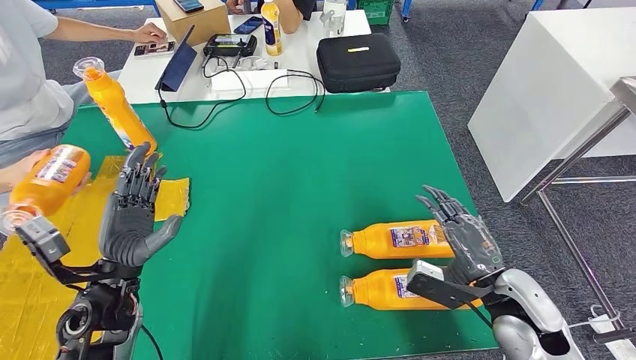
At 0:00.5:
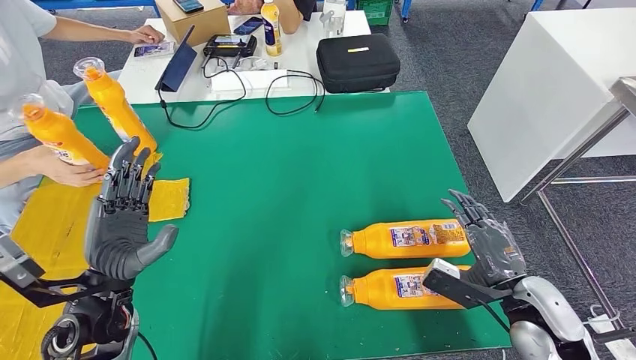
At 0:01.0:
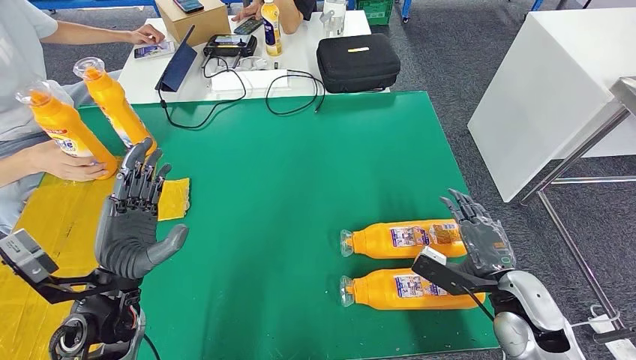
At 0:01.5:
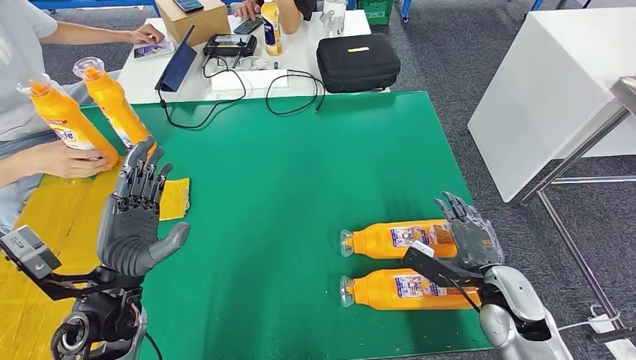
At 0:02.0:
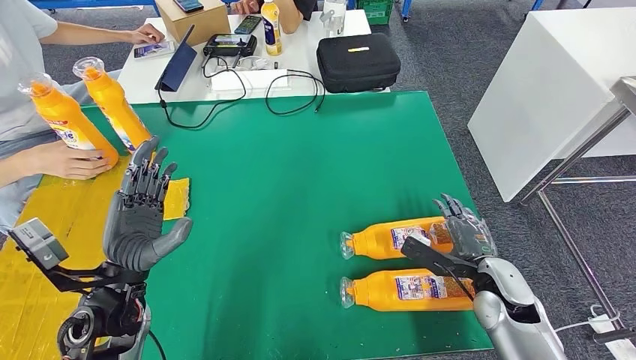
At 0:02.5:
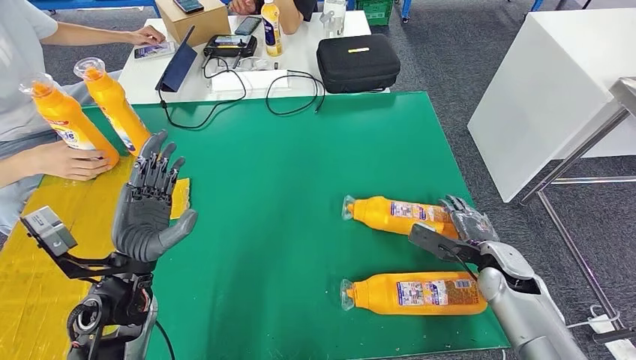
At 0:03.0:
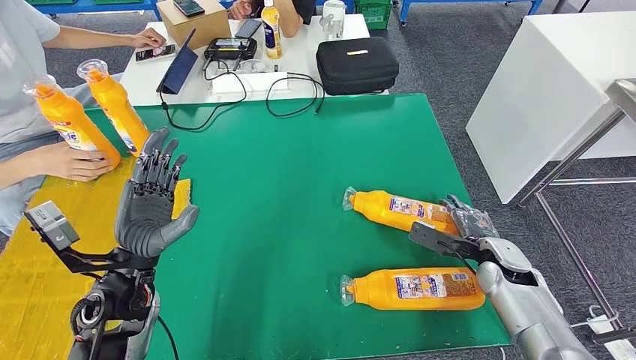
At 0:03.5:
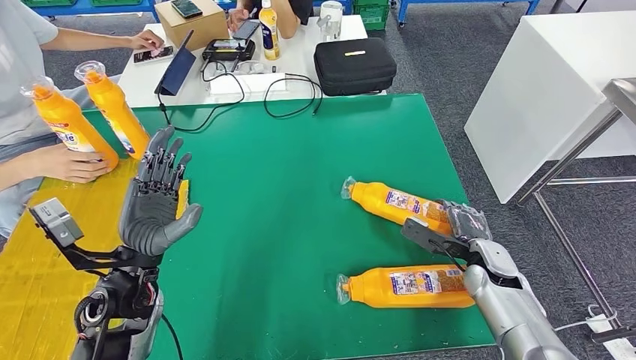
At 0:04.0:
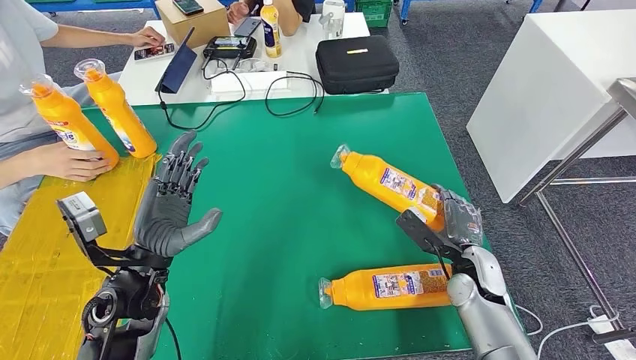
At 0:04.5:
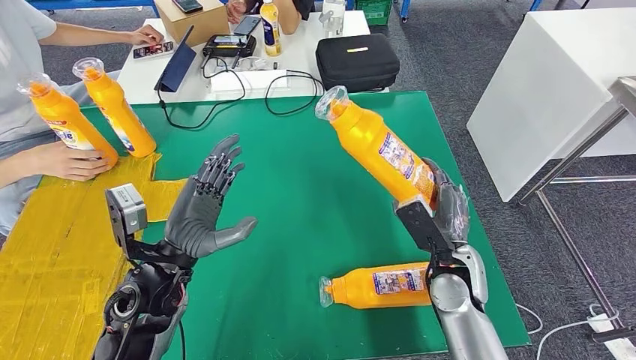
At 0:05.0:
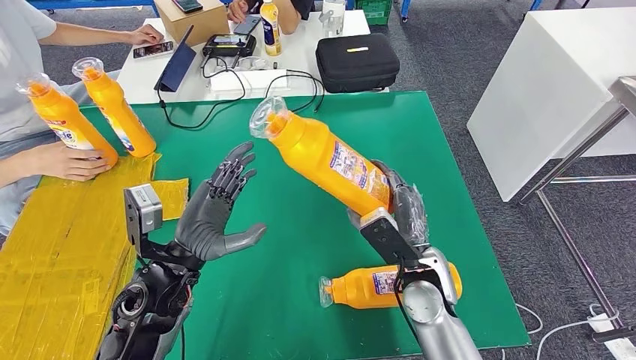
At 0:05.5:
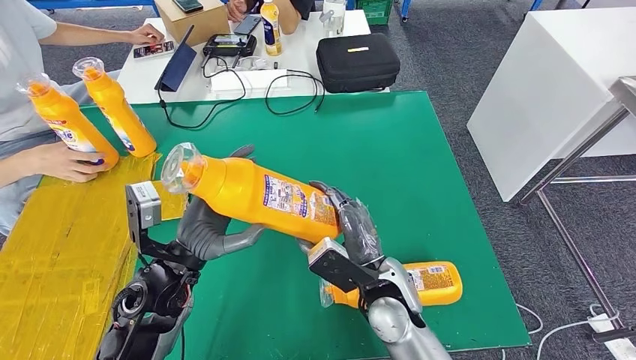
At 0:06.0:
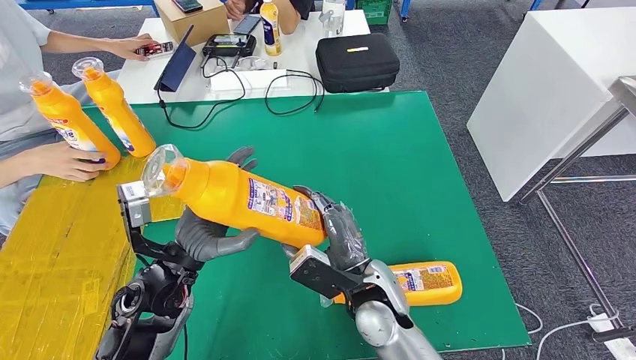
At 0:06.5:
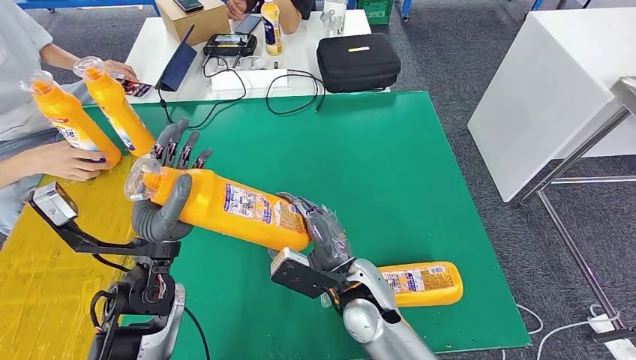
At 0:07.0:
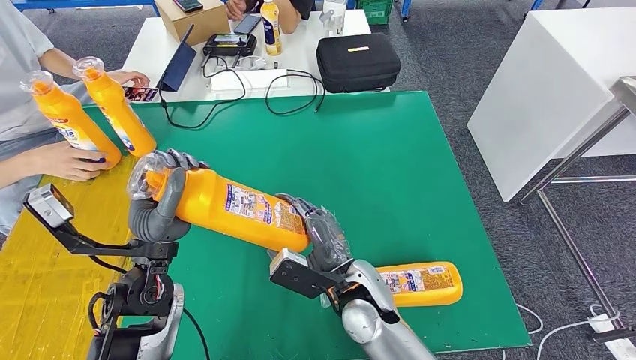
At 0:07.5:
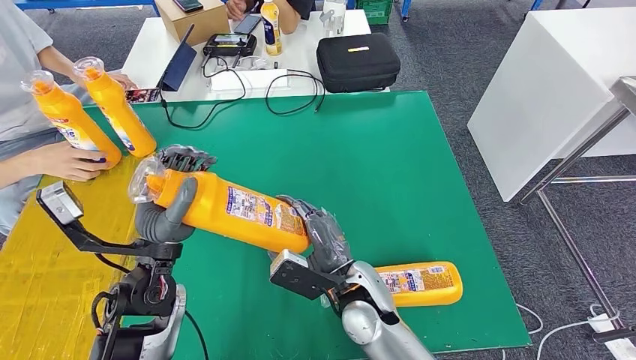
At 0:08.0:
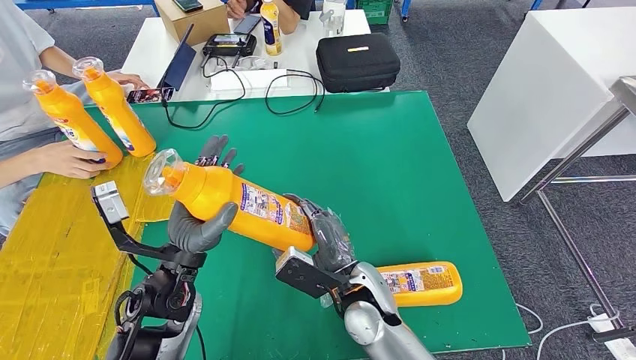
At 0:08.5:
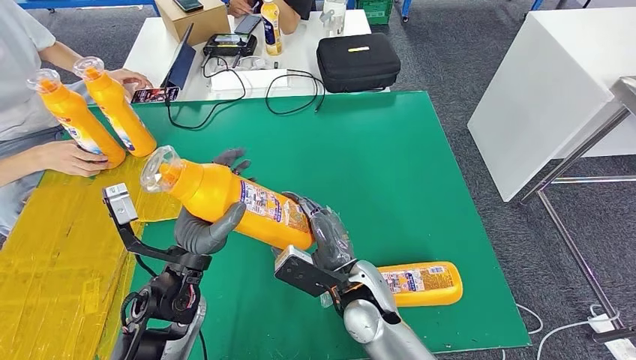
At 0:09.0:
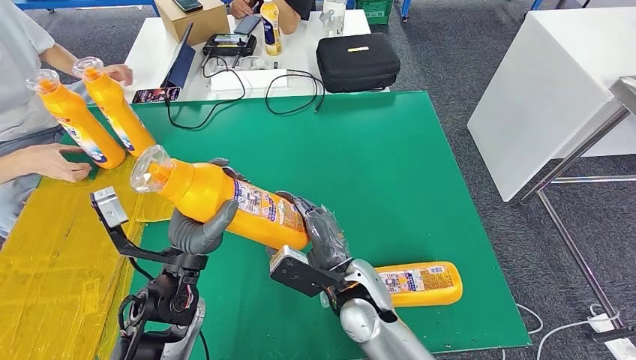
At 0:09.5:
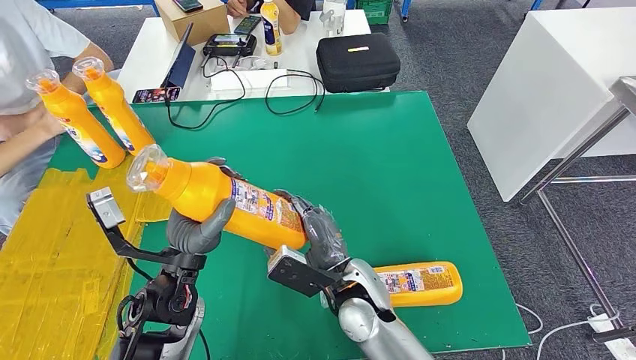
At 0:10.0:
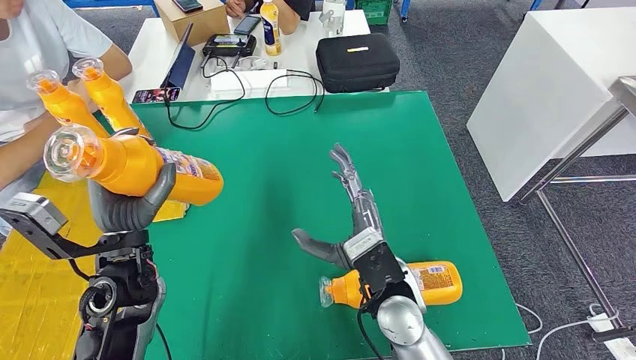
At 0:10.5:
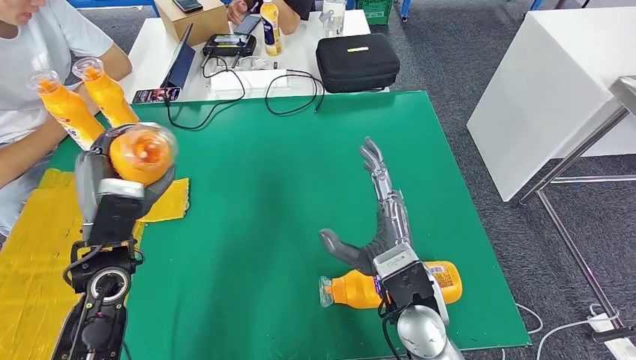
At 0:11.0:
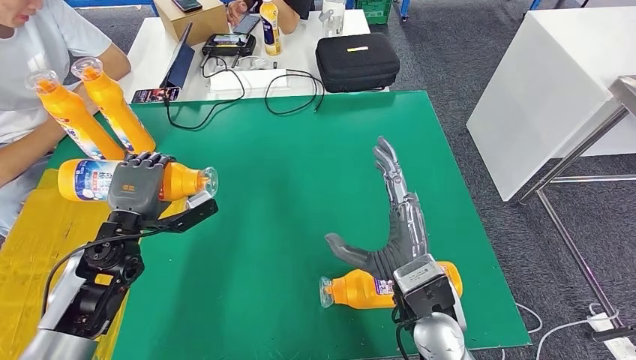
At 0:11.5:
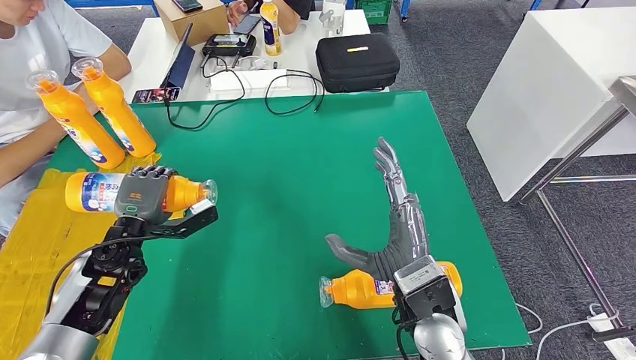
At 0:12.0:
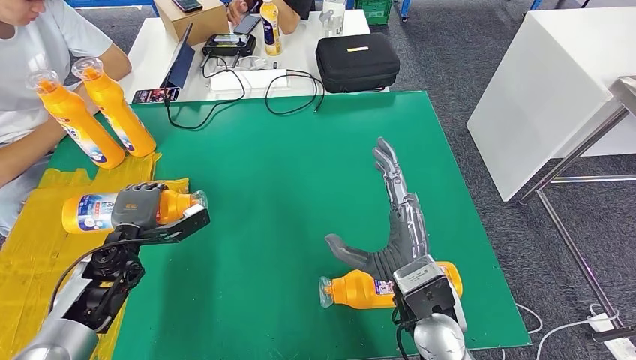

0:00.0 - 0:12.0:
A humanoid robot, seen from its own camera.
Step, 0:04.0 - 0:06.5: Pick up the fast-moving consumer goods bottle from the table.
0:00.0 - 0:02.0: The right hand shifts approximately 5 cm downward.
0:10.0 - 0:12.0: The right hand changes place by about 5 cm; the left hand goes about 15 cm to the left, downward and forward.

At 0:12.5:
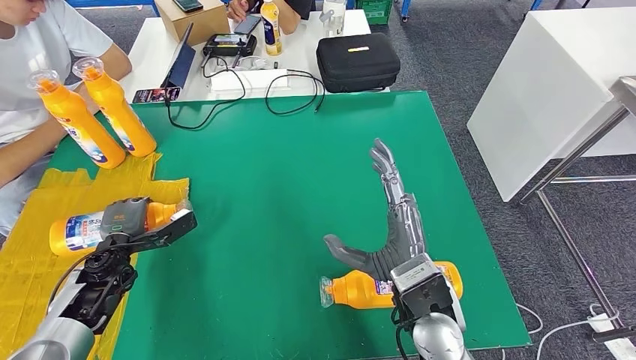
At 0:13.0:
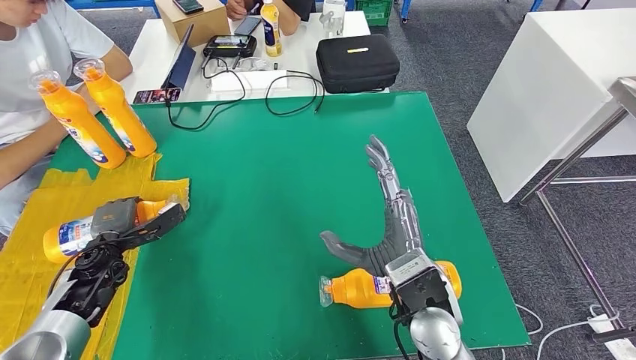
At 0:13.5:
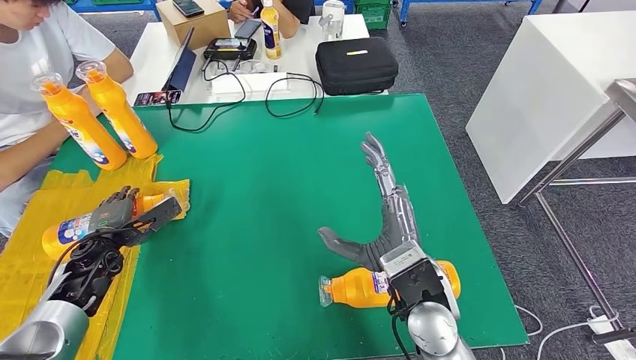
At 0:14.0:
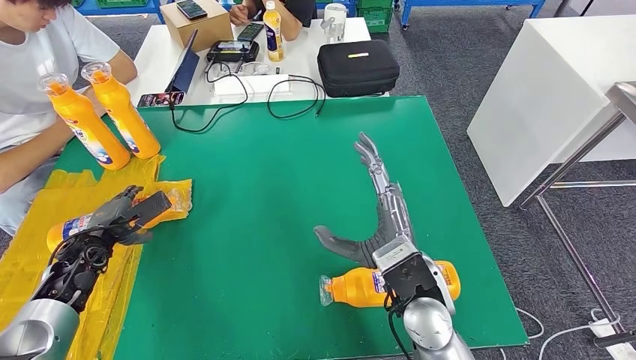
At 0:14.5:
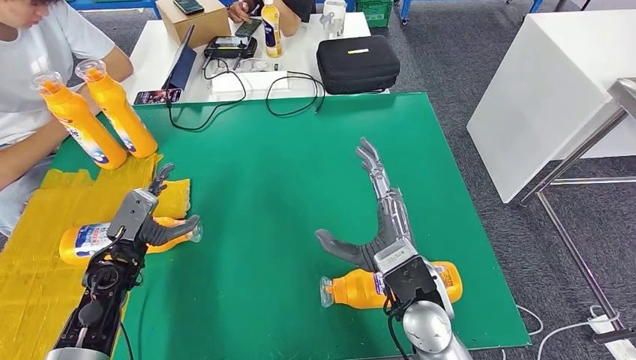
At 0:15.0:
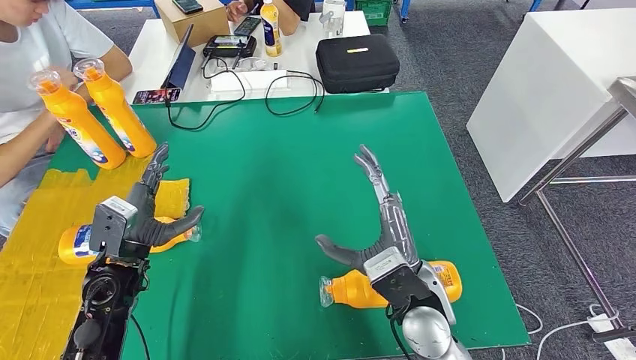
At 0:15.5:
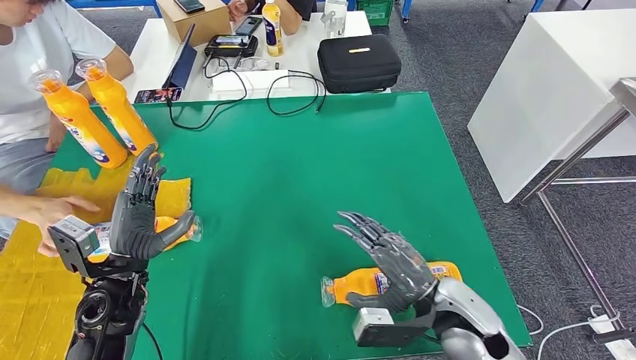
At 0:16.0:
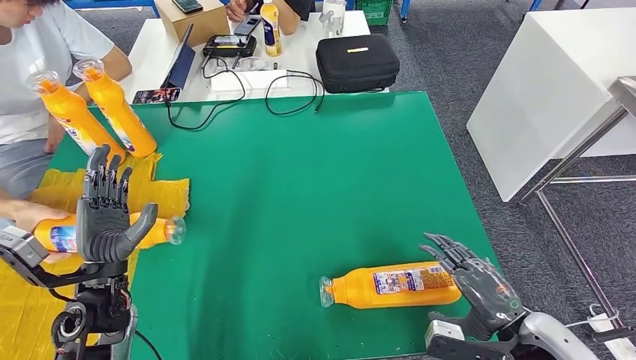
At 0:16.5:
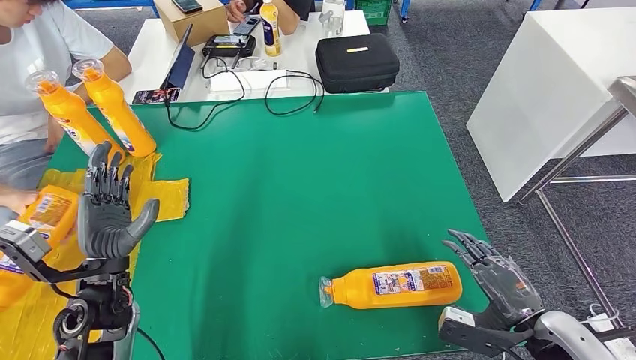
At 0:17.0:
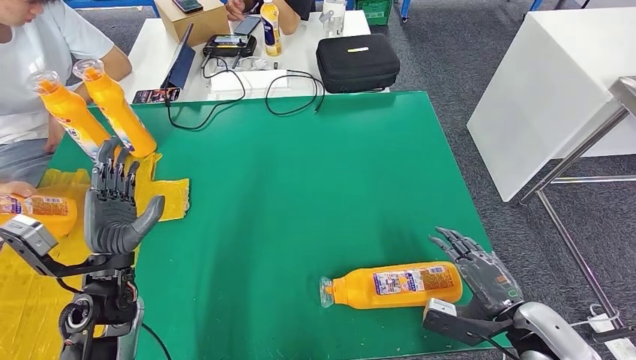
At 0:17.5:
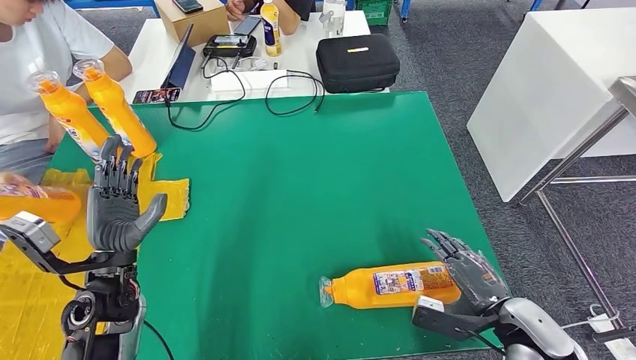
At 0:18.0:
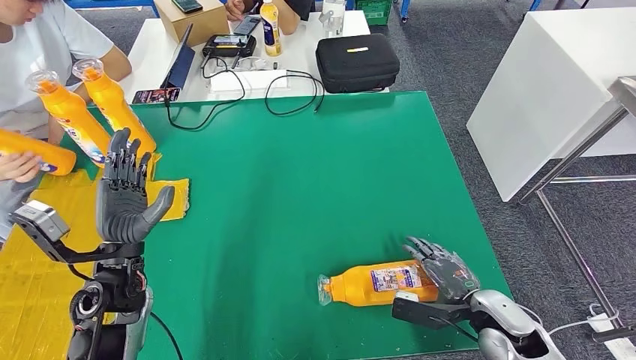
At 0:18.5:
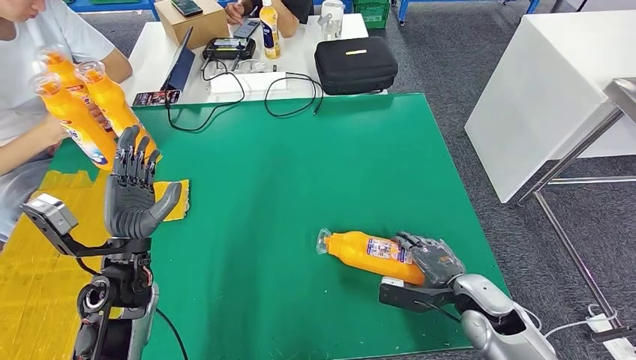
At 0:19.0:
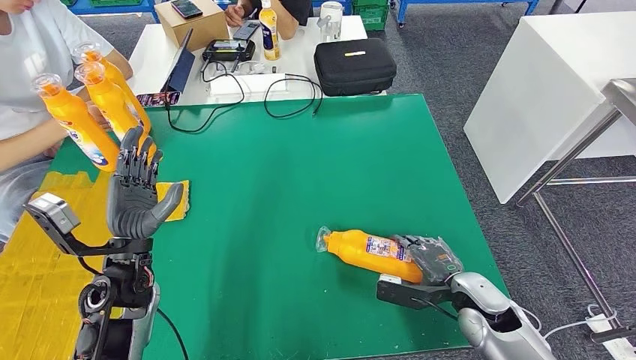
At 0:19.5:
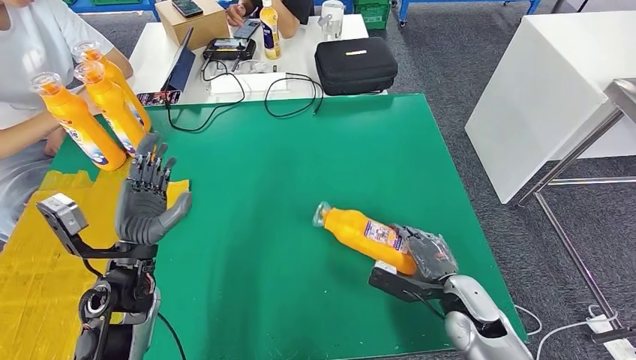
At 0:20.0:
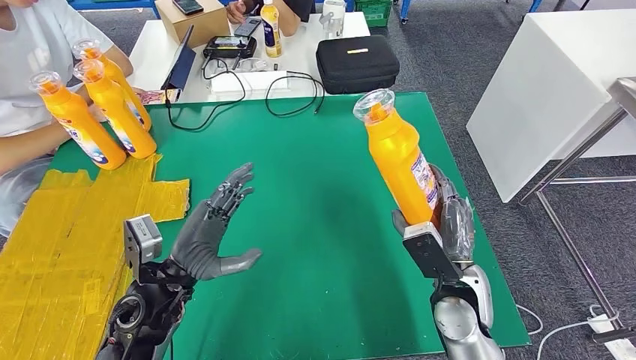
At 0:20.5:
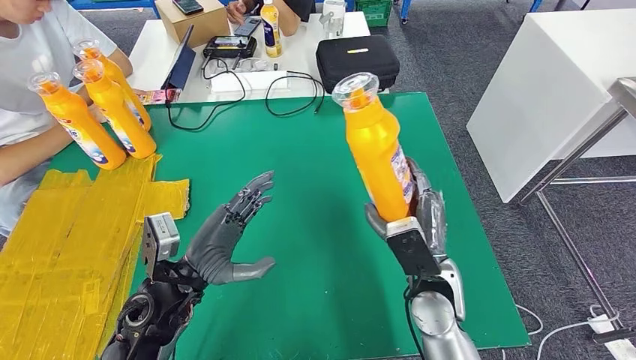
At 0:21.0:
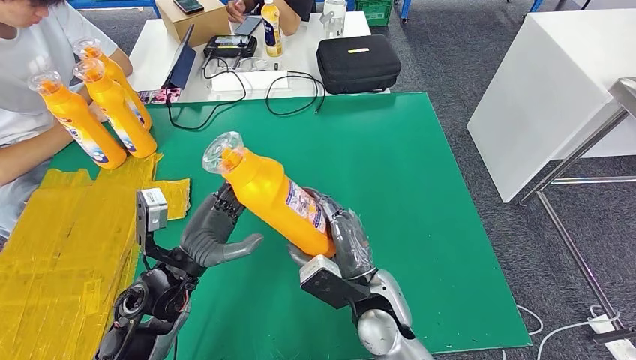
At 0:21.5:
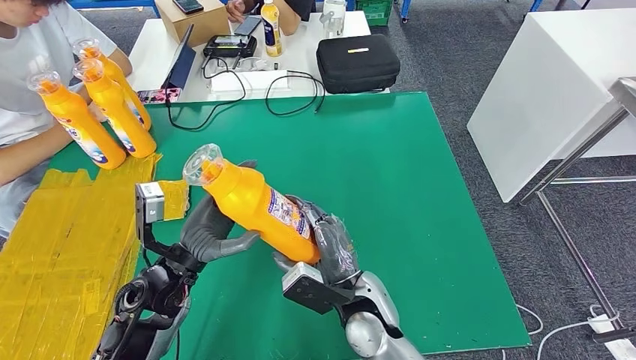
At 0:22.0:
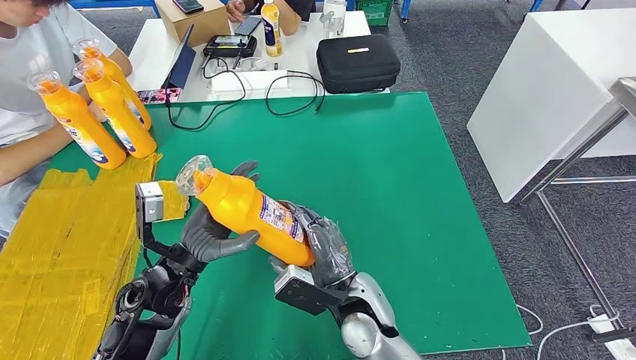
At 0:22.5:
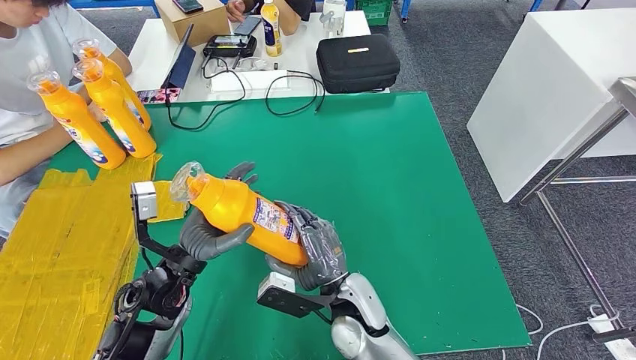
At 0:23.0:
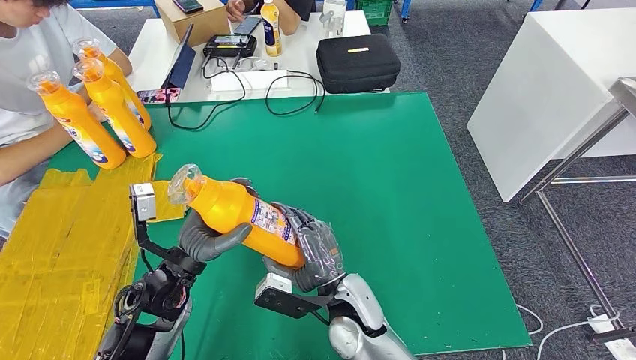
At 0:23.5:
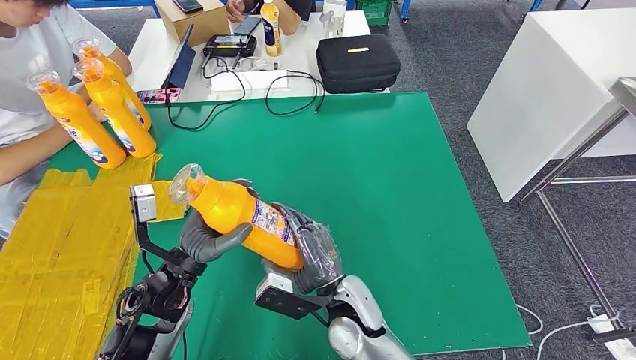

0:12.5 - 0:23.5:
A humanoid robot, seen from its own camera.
Step, 0:12.5 - 0:14.5: Flip the fast-moving consumer goods bottle to the front side.
0:16.0 - 0:18.0: The right hand heads downward and forward, covering some 10 cm.
0:20.0 - 0:21.5: The right hand goes approximately 15 cm to the left.
0:21.5 - 0:23.5: There are only small adjustments of the hands.
